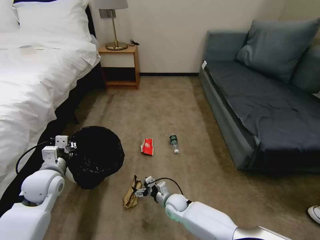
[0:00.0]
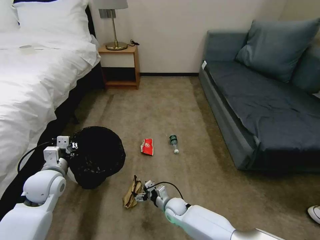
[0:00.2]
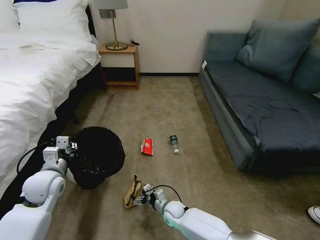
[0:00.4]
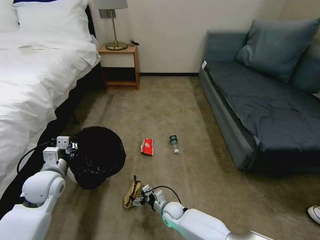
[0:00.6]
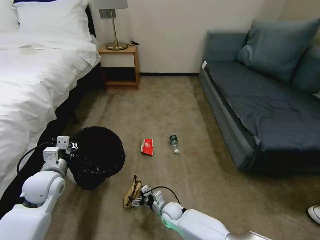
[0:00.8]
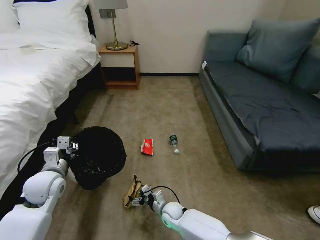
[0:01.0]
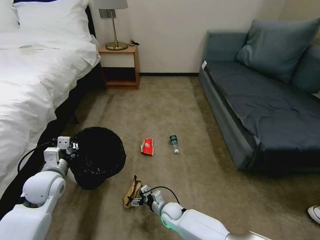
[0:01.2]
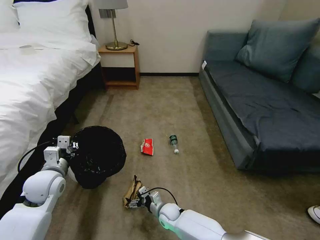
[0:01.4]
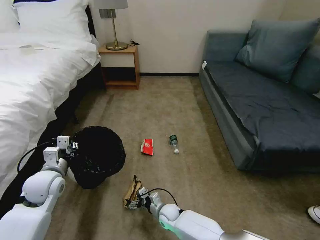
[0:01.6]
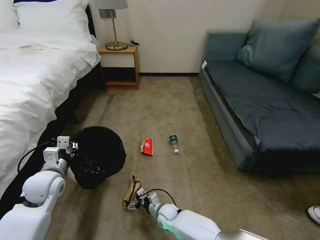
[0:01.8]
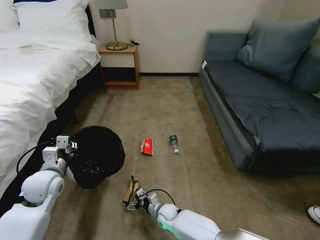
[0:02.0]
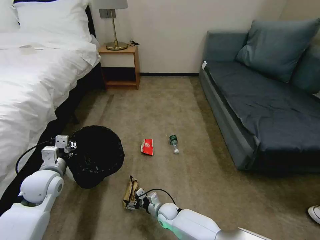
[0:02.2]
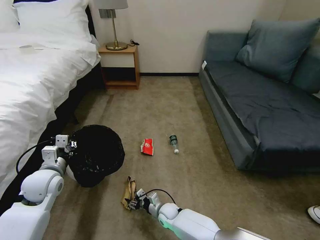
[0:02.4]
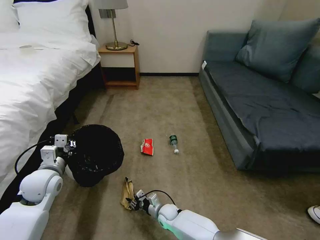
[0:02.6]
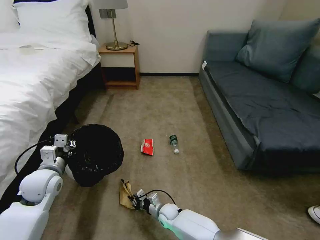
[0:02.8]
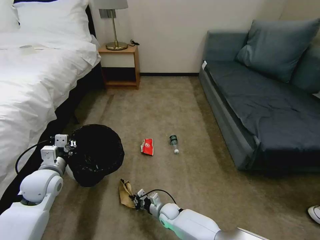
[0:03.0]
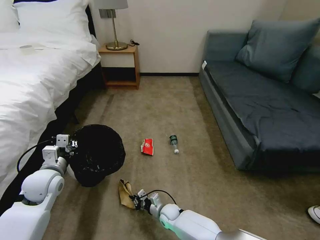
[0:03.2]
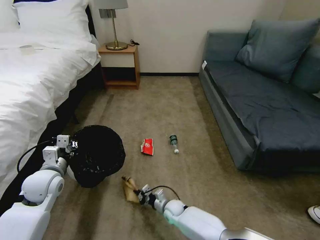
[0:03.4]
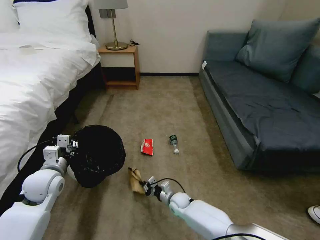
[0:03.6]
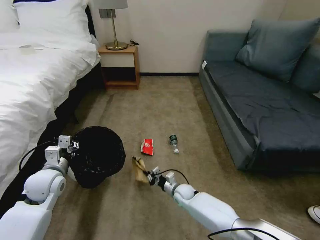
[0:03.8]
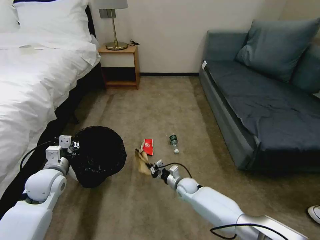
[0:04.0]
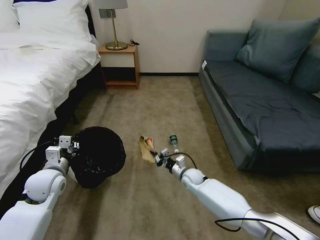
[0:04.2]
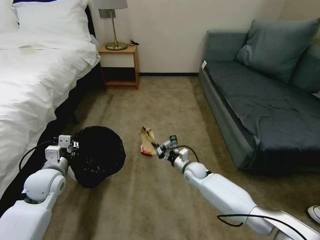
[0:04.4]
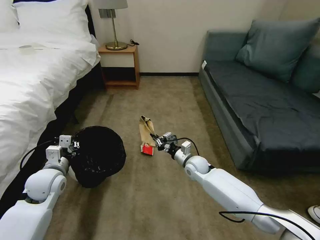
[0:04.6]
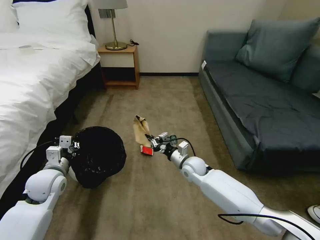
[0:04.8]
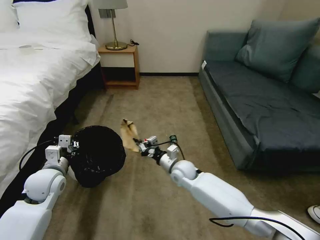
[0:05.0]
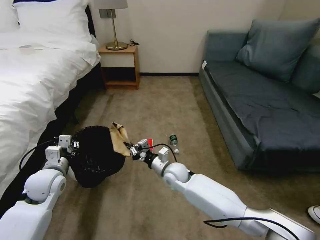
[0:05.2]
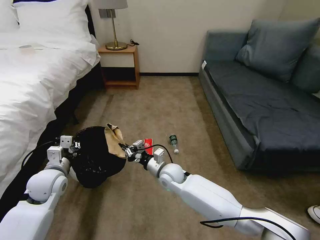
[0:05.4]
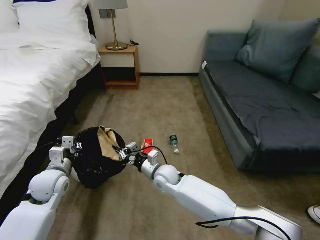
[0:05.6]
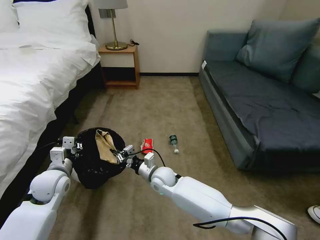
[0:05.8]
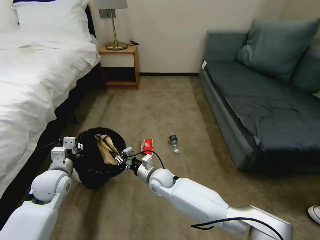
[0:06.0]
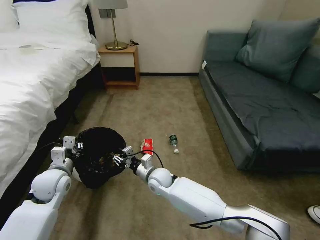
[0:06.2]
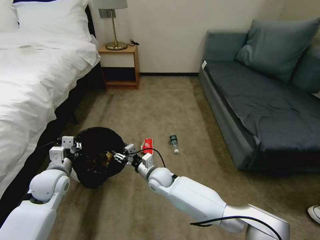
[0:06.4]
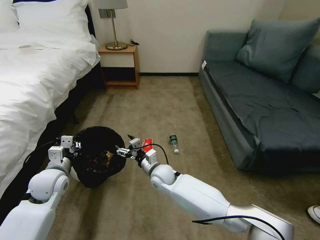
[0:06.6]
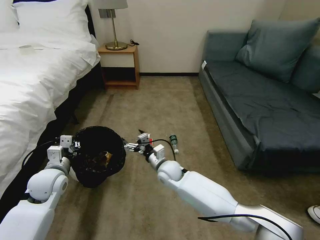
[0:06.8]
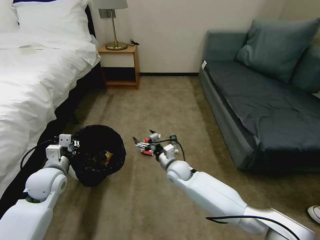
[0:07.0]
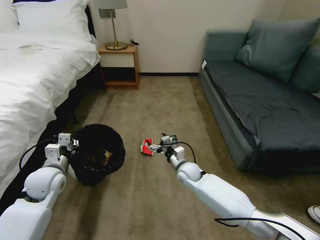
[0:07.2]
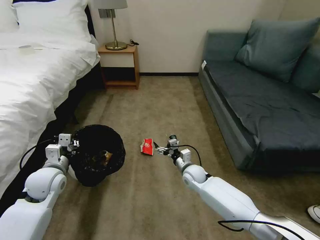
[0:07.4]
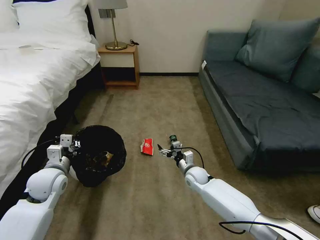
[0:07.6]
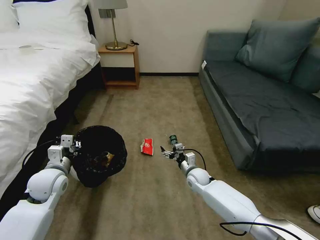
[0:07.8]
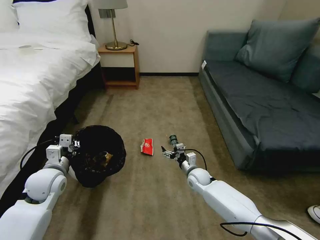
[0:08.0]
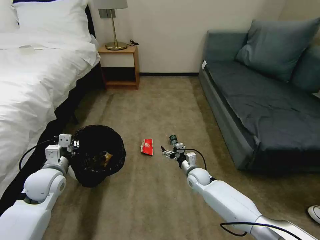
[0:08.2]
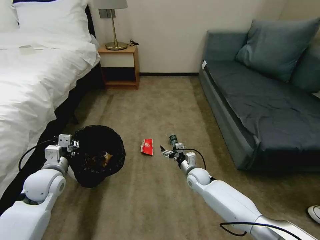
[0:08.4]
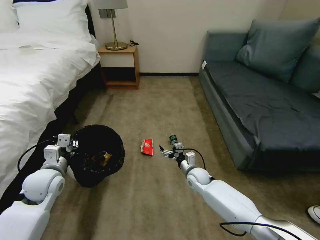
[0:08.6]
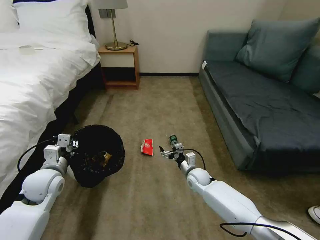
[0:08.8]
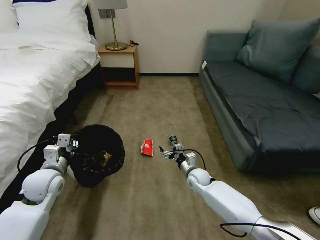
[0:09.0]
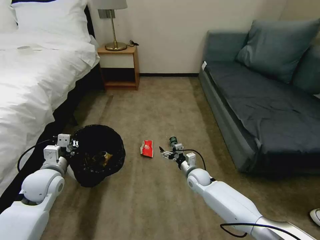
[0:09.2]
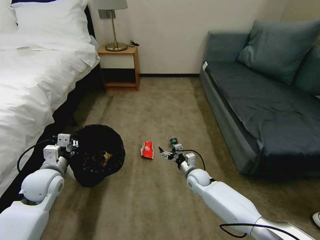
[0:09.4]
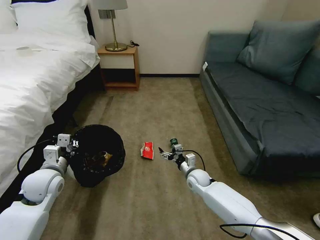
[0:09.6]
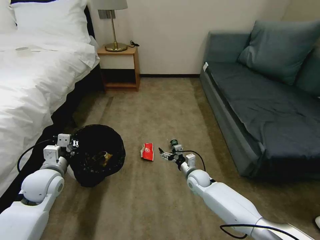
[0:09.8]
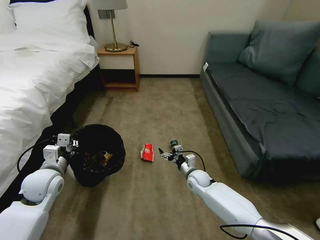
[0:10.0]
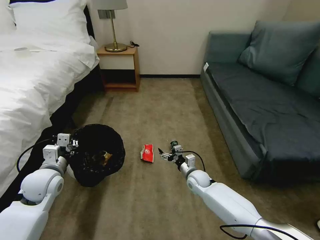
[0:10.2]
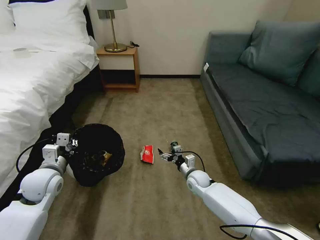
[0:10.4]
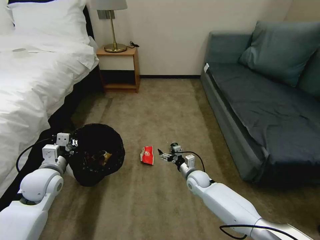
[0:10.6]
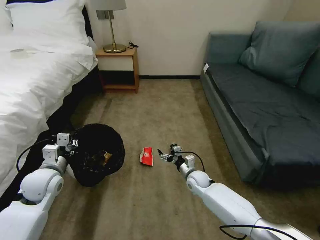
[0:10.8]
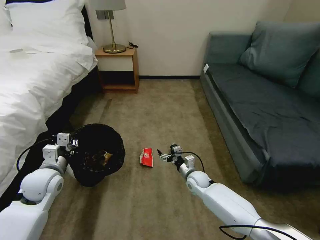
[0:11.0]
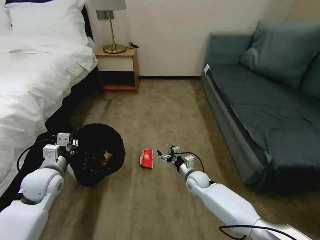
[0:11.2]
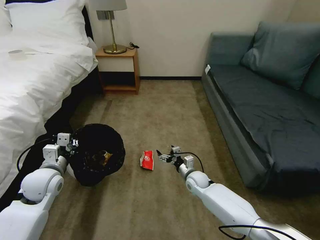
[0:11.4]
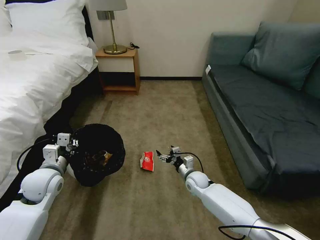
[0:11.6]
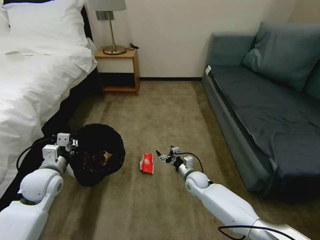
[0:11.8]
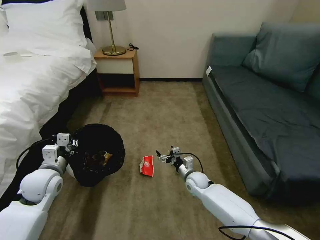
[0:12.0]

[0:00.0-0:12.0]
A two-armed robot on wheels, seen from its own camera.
Task of the whole recording: Pick up the trash bin, then pick up the garbage on the floor and place it into the trash bin.
0:00.0 to 0:01.6: The right gripper ends up some 5 cm from where it was.
0:01.6 to 0:03.0: The right gripper closes up.
0:03.0 to 0:04.4: The right gripper heads upward, forward and to the right, covering roughly 20 cm.
0:04.4 to 0:06.0: The right gripper shifts roughly 15 cm to the left and upward.
0:06.0 to 0:07.6: The right gripper is displaced to the right by some 15 cm, and opens up.
0:07.6 to 0:09.0: The grippers stay close to where they were, moving slightly.
0:09.0 to 0:10.4: Both grippers stay put.
0:10.4 to 0:12.0: The two grippers keep their place.

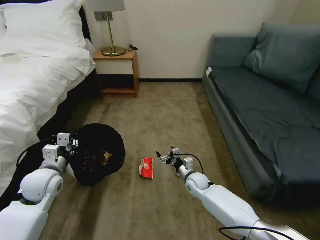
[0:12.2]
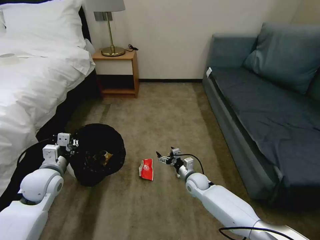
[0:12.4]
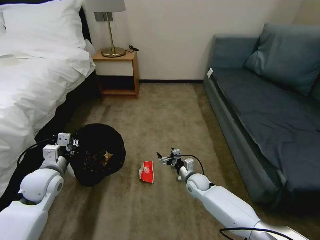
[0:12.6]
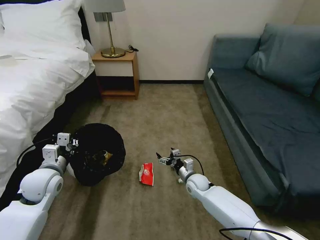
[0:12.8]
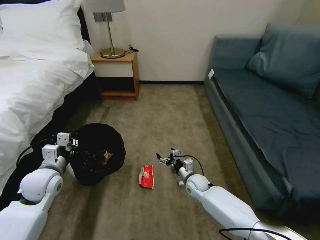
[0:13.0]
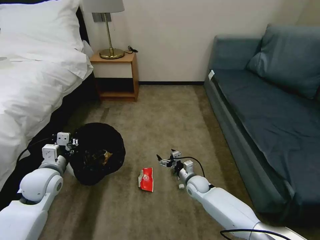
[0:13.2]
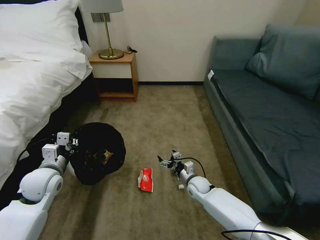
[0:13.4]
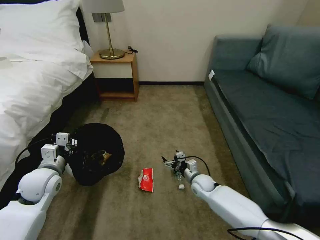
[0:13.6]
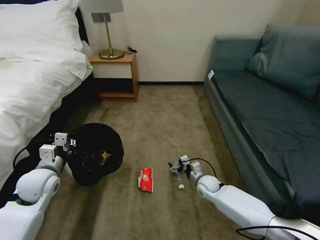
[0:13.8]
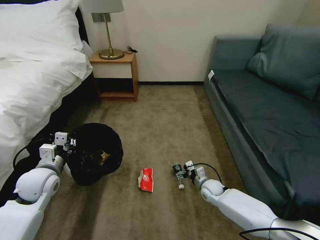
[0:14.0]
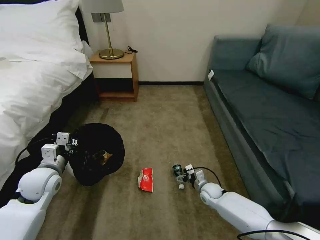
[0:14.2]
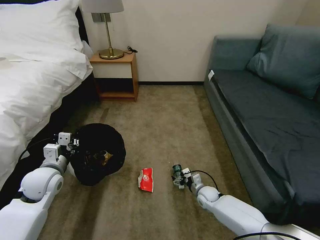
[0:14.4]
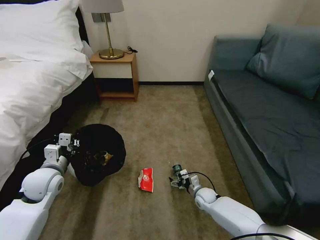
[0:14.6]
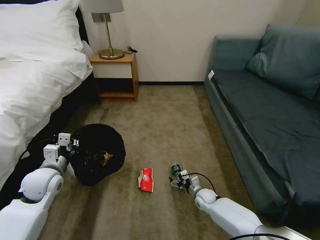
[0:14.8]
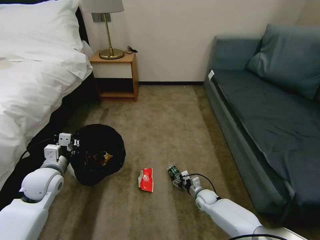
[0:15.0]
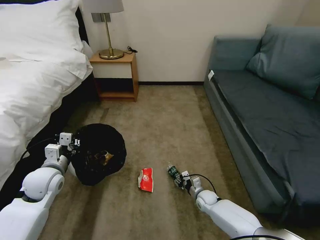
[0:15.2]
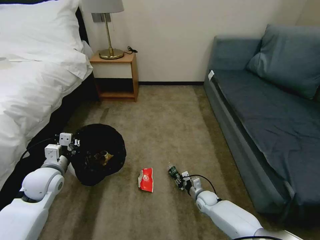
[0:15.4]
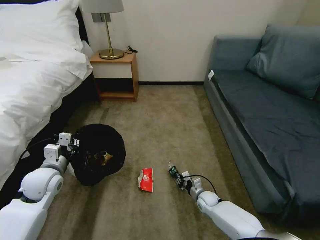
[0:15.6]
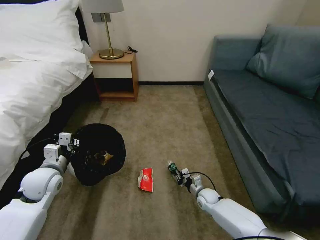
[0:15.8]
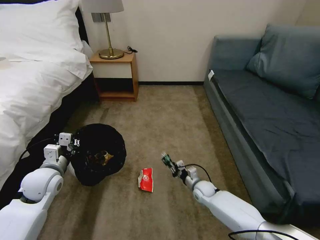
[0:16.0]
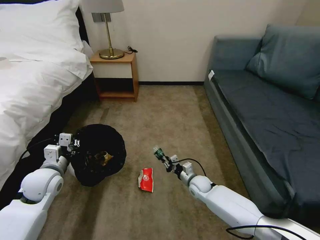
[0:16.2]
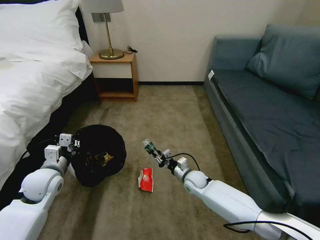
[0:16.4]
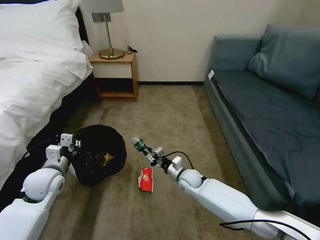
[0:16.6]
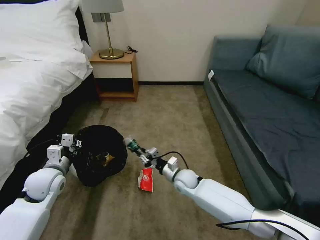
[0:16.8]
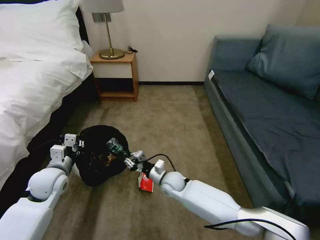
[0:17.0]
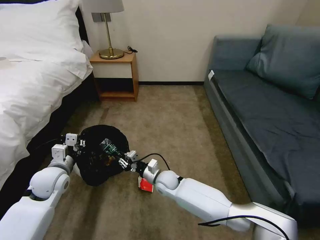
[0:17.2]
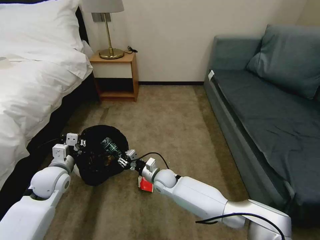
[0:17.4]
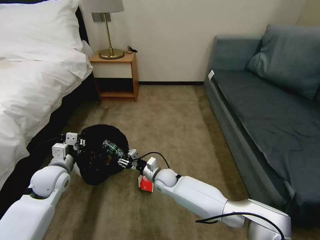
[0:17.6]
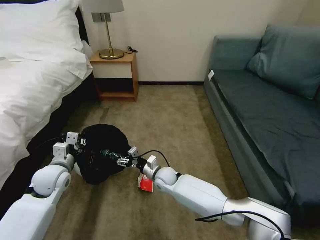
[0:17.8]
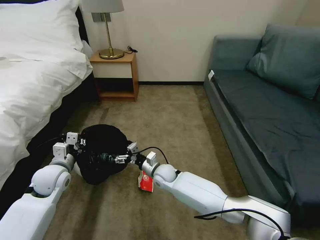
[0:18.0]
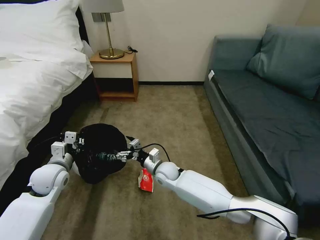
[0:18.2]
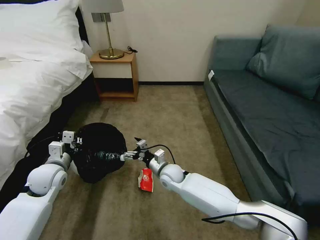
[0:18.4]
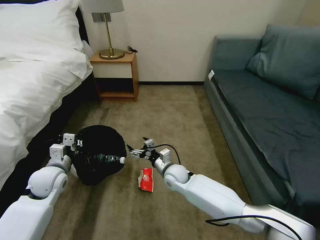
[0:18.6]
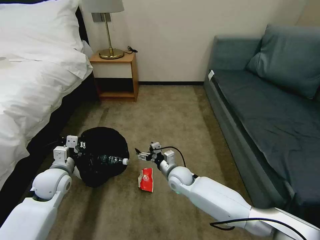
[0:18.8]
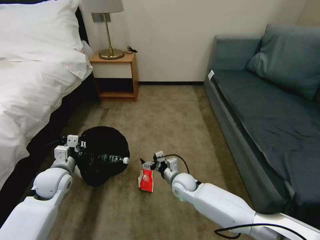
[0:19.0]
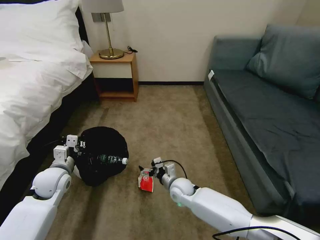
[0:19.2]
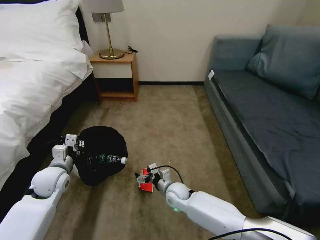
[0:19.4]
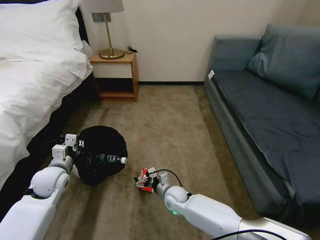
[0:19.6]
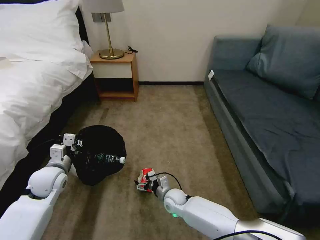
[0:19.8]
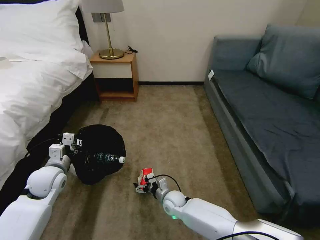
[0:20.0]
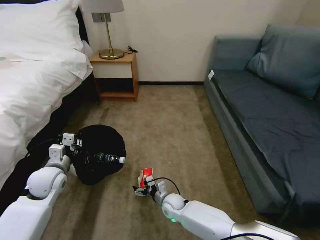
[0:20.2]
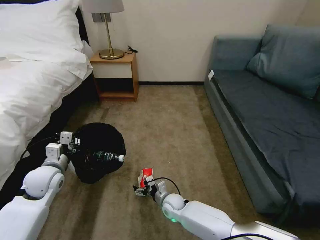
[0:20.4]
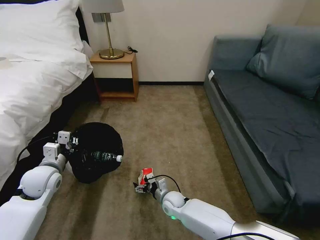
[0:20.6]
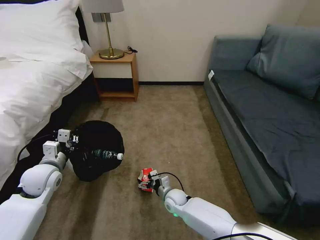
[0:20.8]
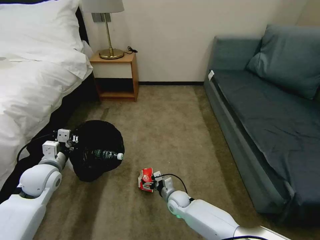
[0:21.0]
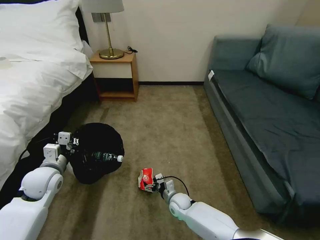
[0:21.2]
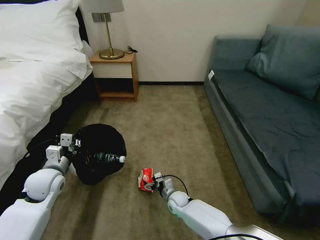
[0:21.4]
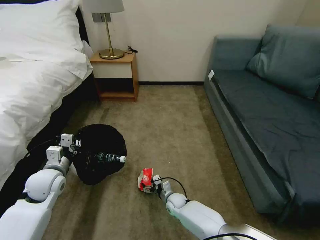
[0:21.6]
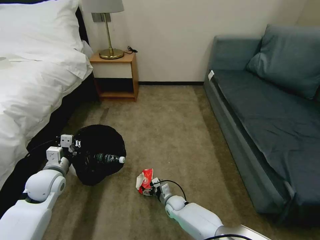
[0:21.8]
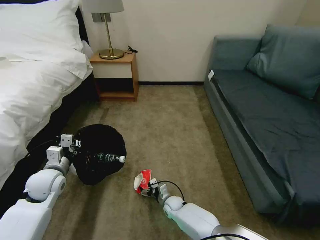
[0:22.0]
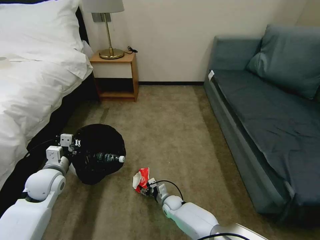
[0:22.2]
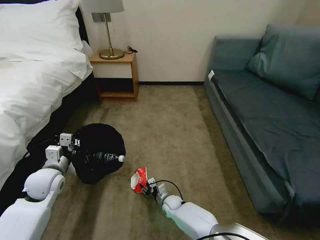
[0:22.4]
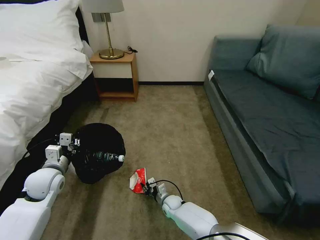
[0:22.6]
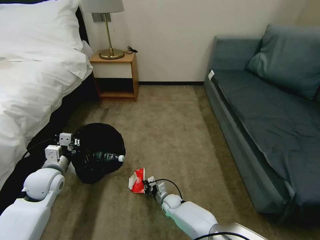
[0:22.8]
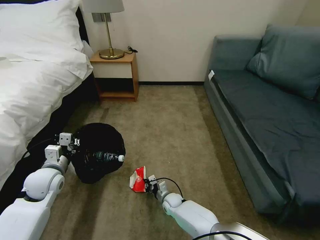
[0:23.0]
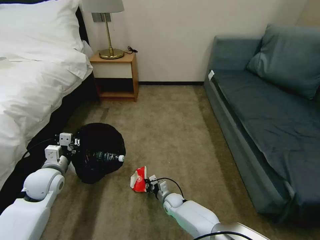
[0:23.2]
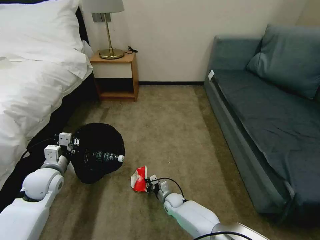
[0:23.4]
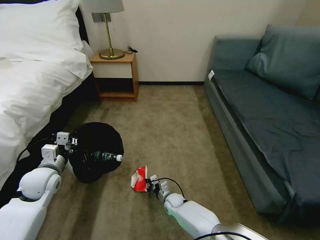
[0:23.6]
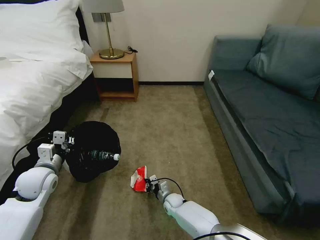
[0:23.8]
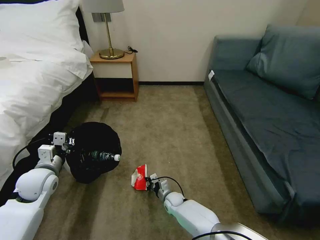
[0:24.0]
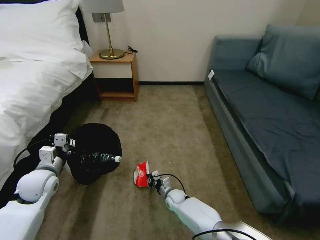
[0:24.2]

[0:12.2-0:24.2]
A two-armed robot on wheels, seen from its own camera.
Task of the whole recording: Pick up the trash bin, then pick up the garbage on the floor and place it into the trash bin.
0:12.2 to 0:13.8: The right gripper heads to the right, covering roughly 5 cm.
0:13.8 to 0:15.2: The right gripper travels downward by about 10 cm, and closes.
0:15.2 to 0:16.6: The right gripper goes roughly 15 cm upward and to the left, and closes its fingers.
0:16.6 to 0:18.2: The right gripper heads to the left, covering roughly 10 cm, and opens up.
0:18.2 to 0:19.8: The right gripper goes some 15 cm downward and backward.
0:19.8 to 0:21.2: There are only small adjustments of the grippers.
0:21.2 to 0:22.6: The right gripper shifts by about 5 cm, and closes up.
0:22.6 to 0:24.2: The grippers move only a little.
